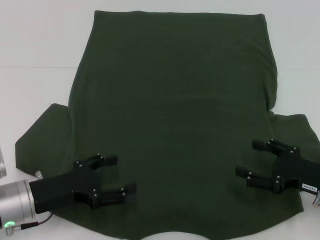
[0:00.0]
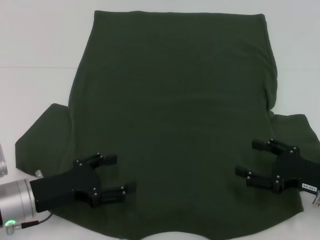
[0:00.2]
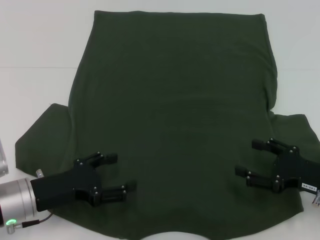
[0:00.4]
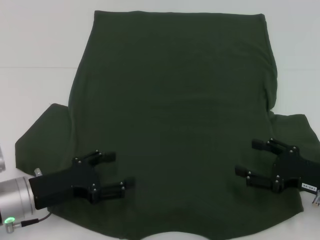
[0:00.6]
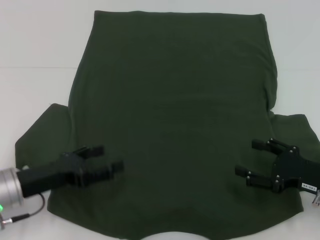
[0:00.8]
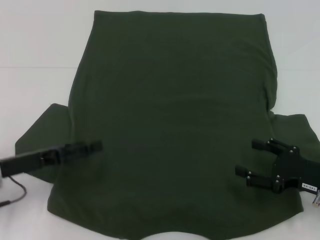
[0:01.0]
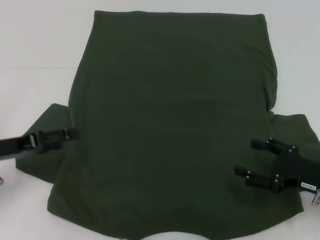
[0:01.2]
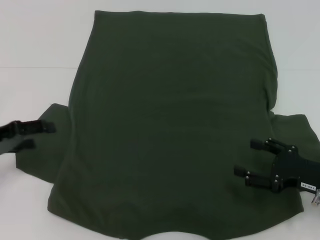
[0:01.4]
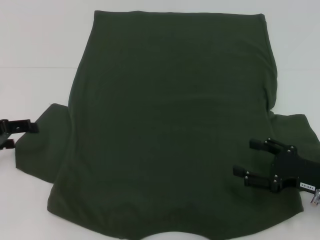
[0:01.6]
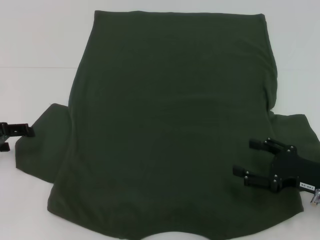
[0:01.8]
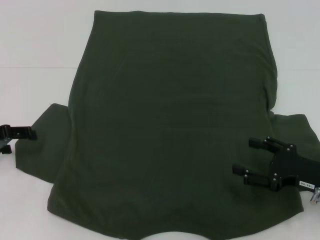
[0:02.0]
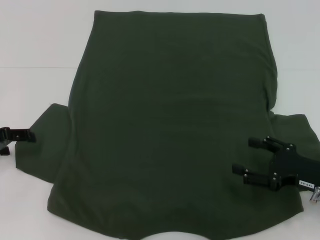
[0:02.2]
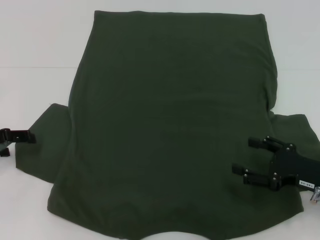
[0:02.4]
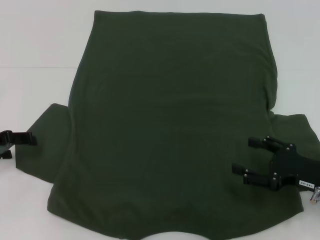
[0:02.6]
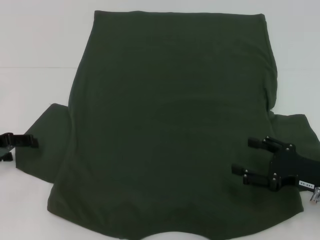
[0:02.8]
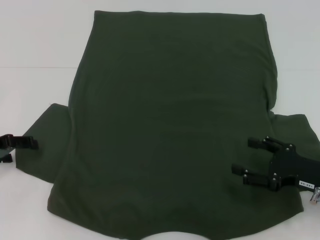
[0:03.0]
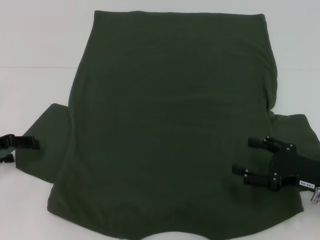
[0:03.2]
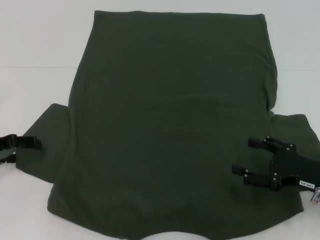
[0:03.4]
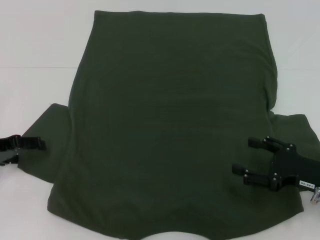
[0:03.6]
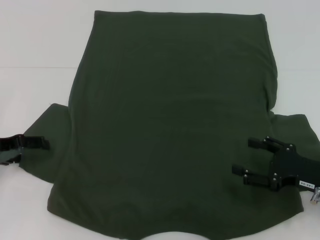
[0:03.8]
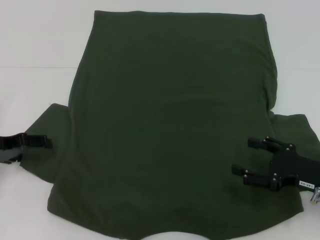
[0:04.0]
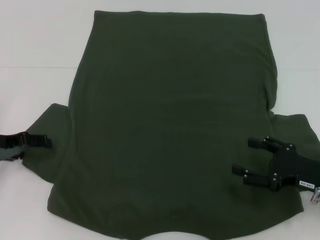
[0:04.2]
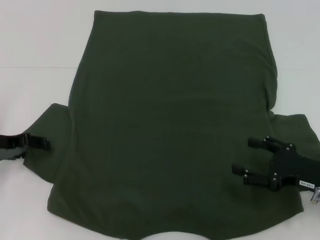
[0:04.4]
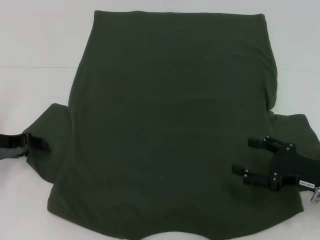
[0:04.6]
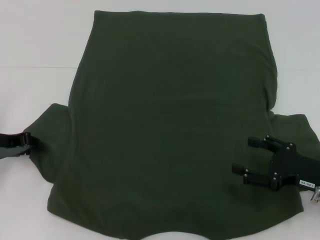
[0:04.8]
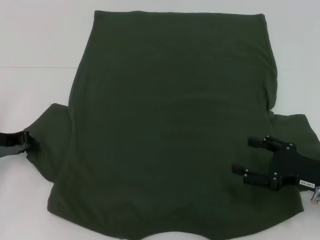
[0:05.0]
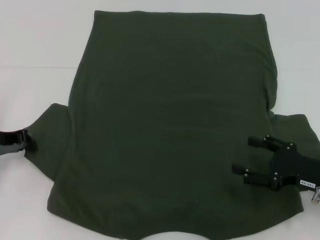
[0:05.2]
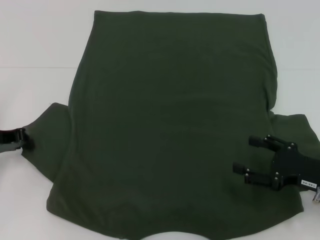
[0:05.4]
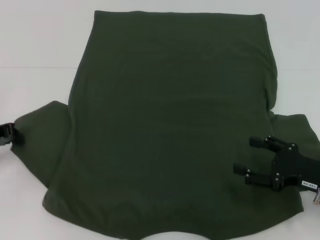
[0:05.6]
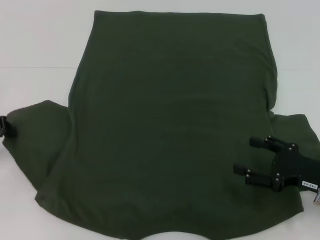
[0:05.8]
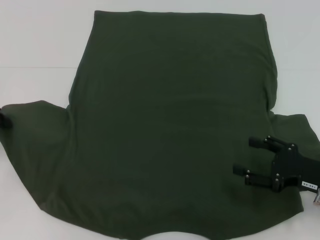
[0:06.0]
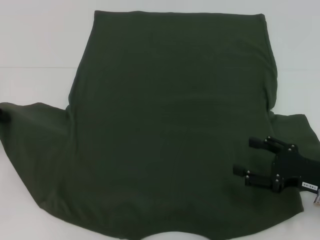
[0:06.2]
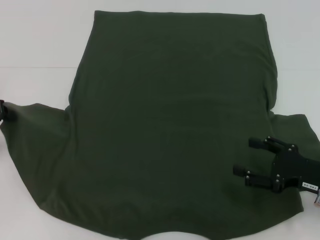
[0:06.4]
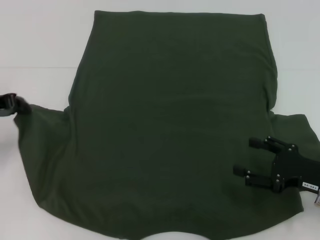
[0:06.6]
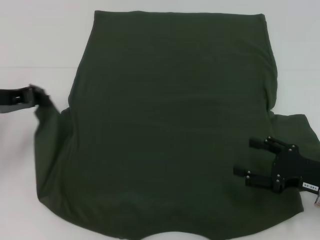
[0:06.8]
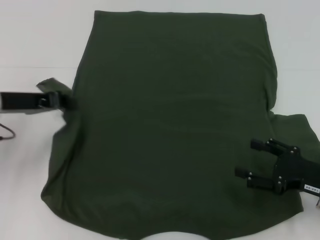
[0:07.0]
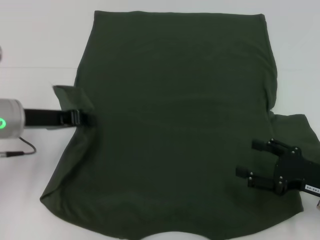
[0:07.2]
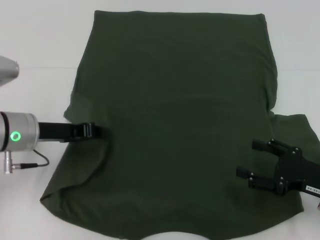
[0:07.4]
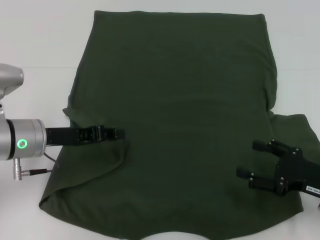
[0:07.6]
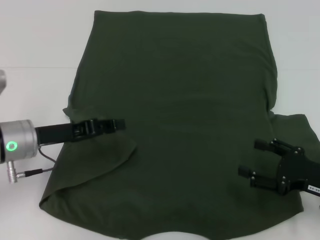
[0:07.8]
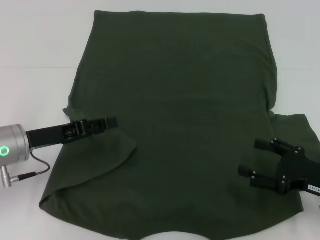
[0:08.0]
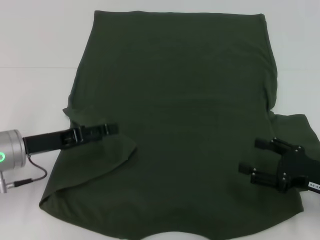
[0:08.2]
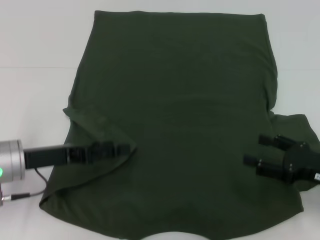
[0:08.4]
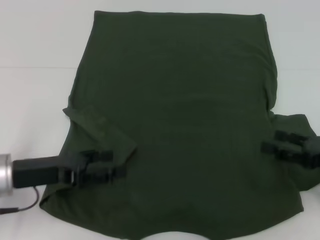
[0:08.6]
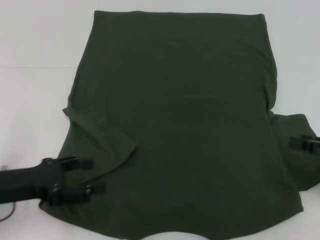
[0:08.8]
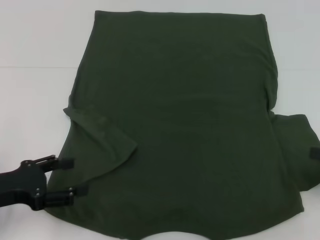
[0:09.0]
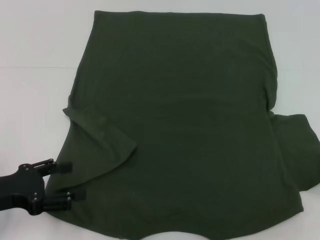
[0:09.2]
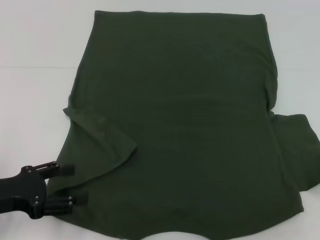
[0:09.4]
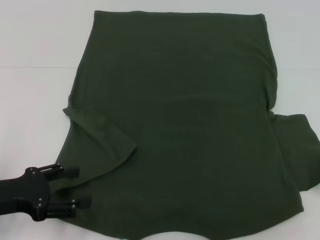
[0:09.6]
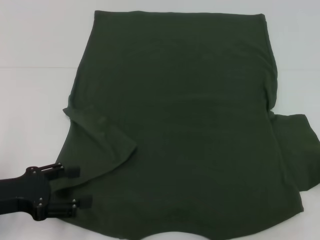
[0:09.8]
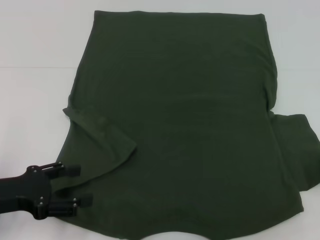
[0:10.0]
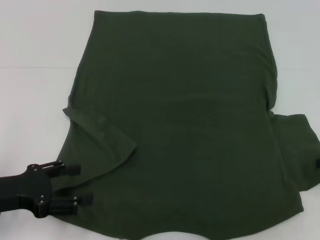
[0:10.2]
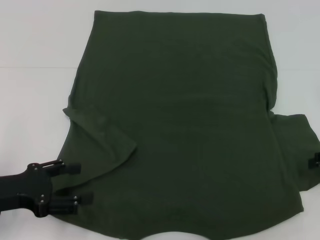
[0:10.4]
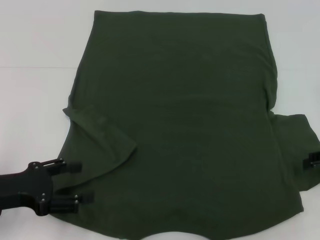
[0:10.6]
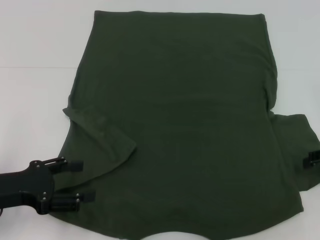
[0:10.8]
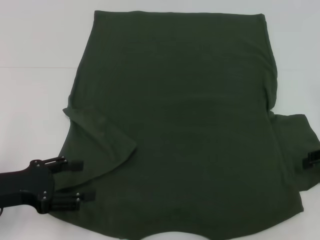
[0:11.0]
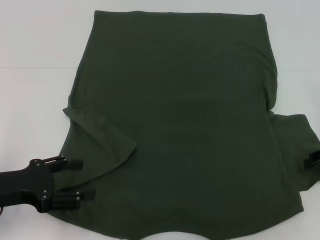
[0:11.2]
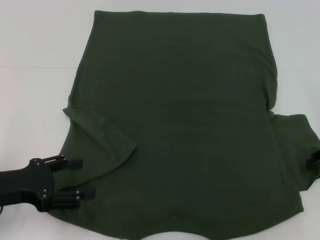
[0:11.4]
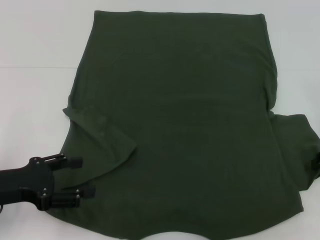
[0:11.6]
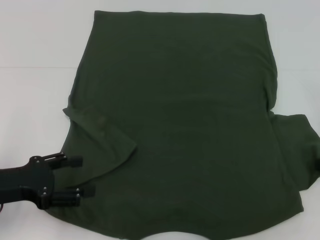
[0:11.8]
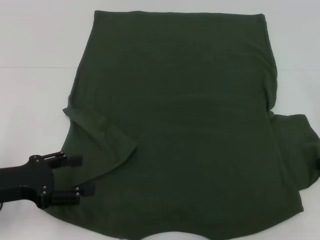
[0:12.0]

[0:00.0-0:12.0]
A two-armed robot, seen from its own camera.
Step, 0:00.0 to 0:08.0: Fold the bottom left sleeve with your left hand.
0:00.0 to 0:01.6: The left gripper goes approximately 15 cm to the left, forward and upward.
0:01.6 to 0:03.0: The grippers stay close to where they were, moving slightly.
0:04.4 to 0:06.0: The left gripper shifts by about 5 cm, and closes its fingers.
0:06.0 to 0:07.6: The left gripper goes some 15 cm to the right.
0:07.6 to 0:09.0: The right gripper goes about 10 cm to the right and upward. Meanwhile the left gripper moves backward and to the left, some 10 cm, and opens its fingers.

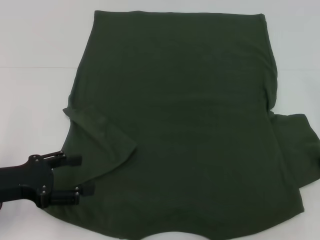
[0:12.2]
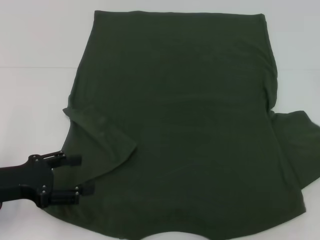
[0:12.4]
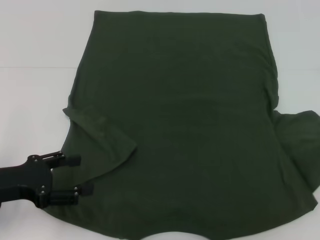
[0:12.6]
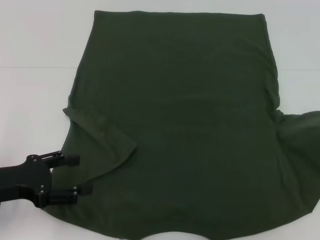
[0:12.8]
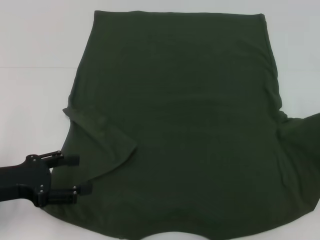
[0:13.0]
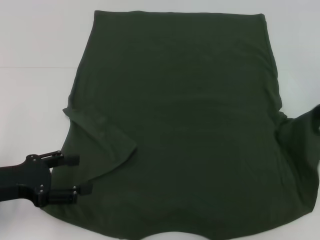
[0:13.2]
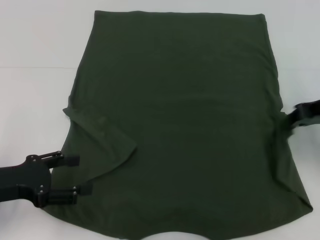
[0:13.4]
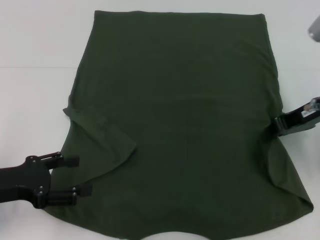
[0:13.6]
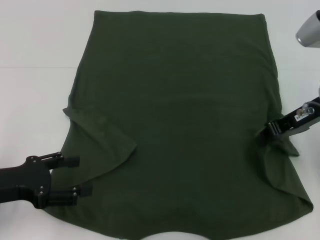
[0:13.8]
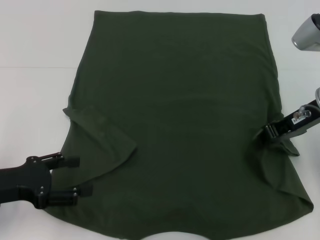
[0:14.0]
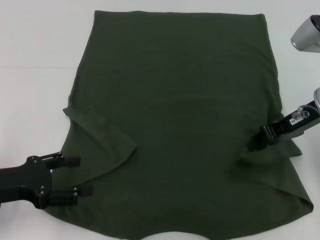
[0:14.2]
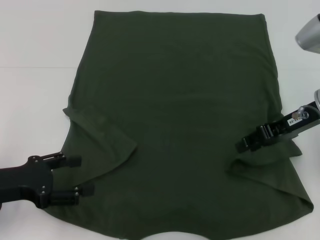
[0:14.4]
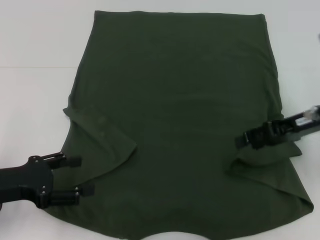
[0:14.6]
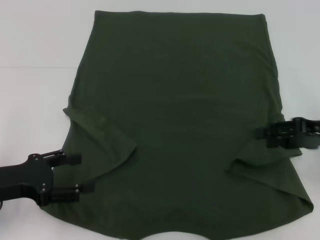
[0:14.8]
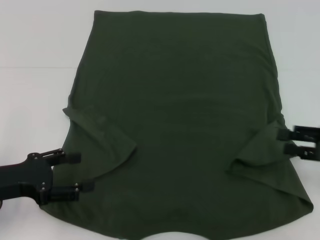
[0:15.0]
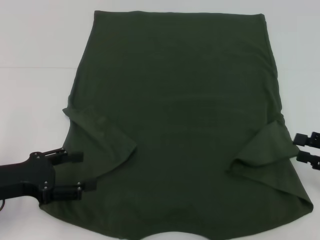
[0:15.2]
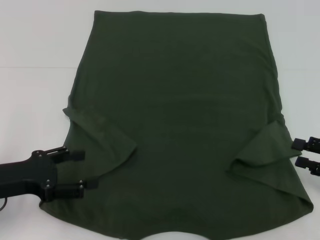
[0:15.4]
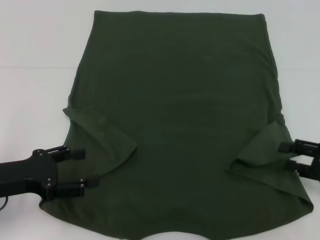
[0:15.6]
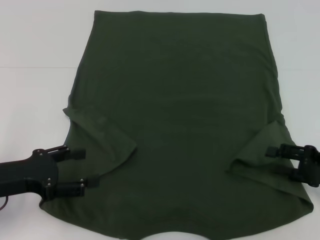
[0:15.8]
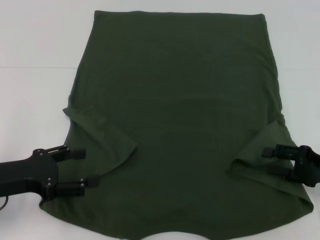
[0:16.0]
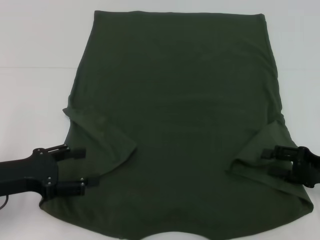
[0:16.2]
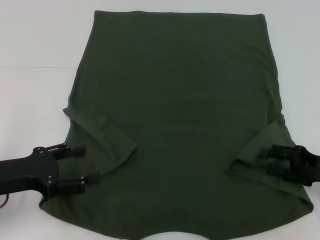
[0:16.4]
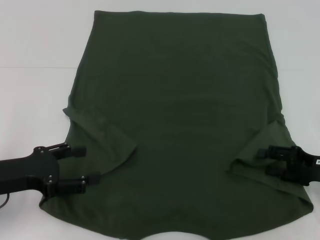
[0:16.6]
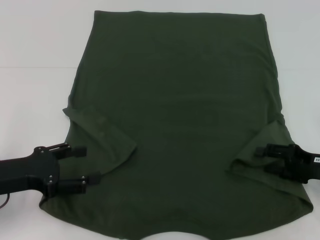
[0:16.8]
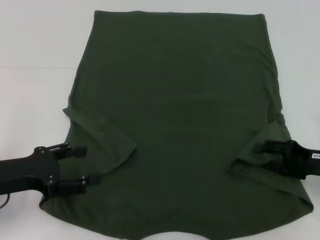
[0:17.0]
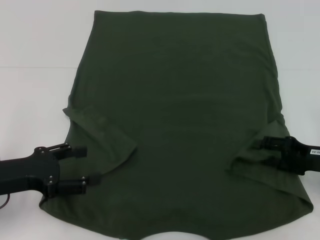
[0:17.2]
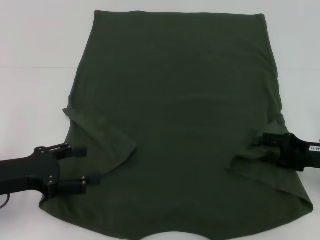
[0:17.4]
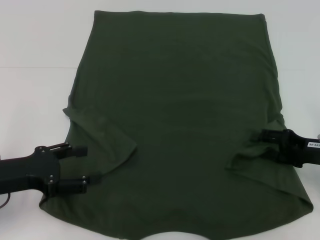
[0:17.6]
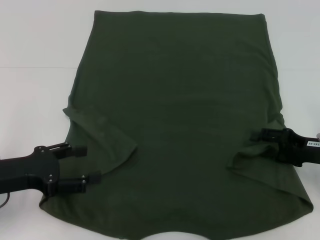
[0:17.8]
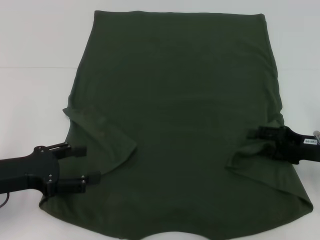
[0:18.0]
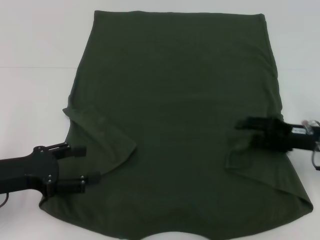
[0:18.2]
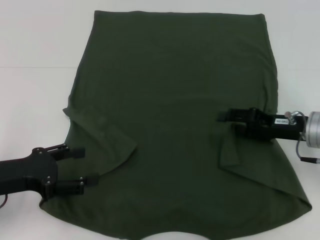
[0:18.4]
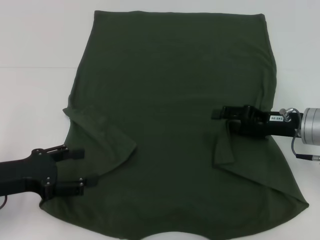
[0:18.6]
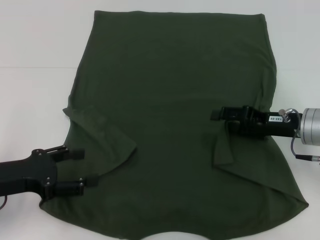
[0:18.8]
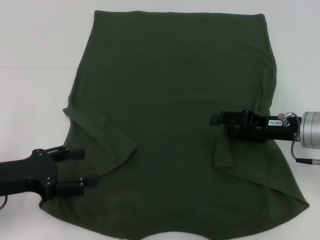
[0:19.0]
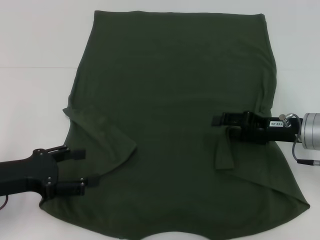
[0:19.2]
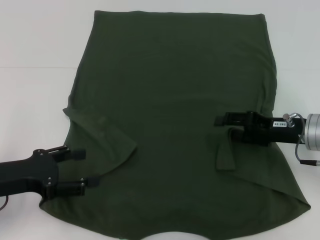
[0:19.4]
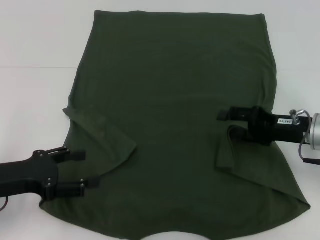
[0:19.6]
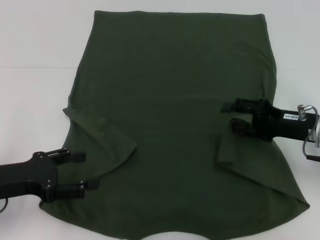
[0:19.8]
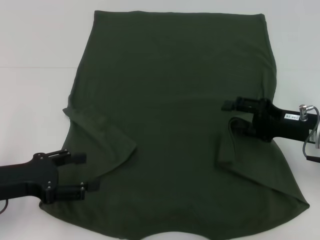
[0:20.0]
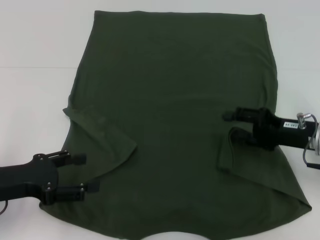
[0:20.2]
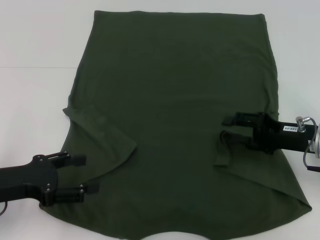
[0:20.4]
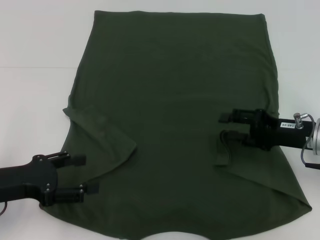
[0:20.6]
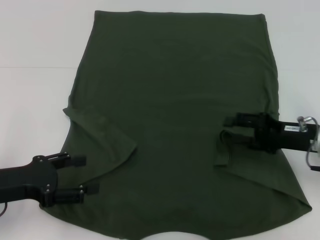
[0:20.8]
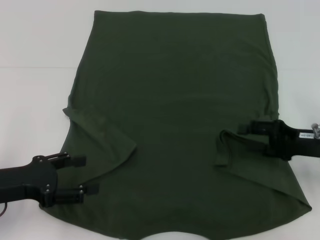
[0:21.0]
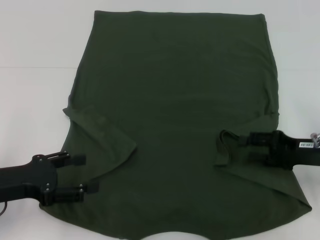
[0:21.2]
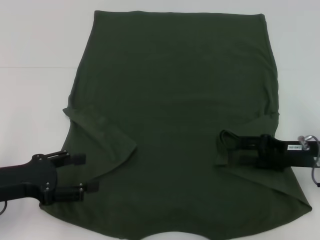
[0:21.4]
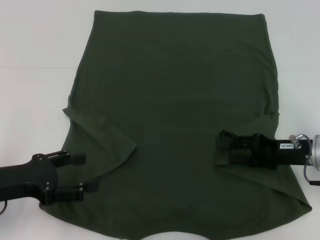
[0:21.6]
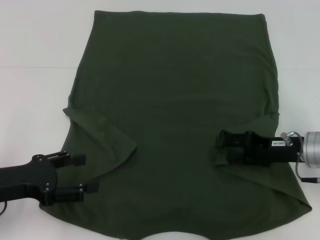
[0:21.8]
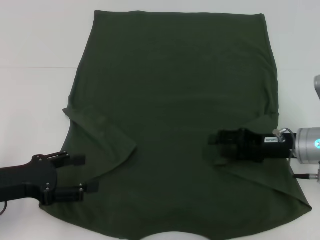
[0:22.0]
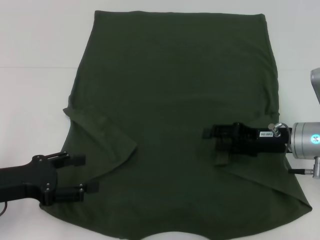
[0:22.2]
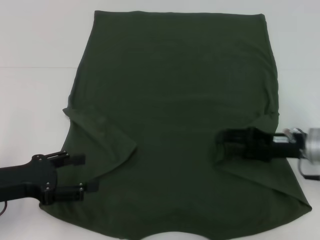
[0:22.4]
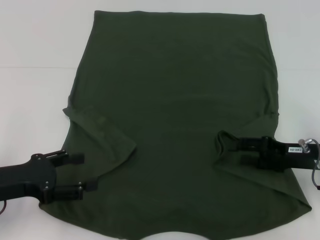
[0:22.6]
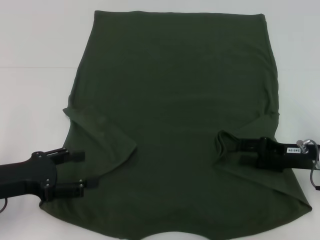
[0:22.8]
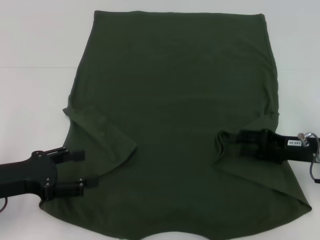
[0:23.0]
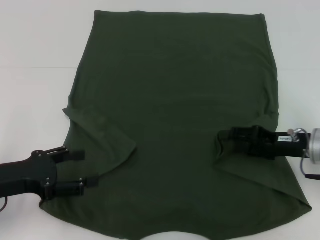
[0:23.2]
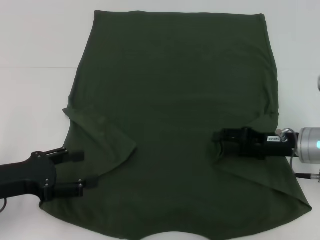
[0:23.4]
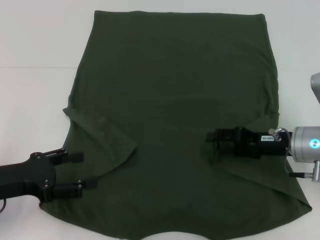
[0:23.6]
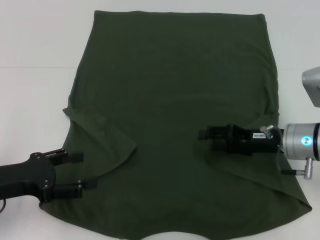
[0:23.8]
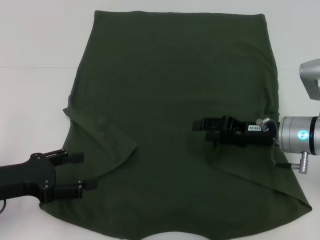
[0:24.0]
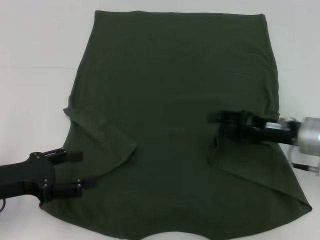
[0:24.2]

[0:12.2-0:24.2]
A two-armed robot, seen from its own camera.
Step, 0:12.2 to 0:14.8: Fold the bottom right sleeve with your right hand.
0:12.2 to 0:13.8: The right gripper heads to the left, covering approximately 10 cm.
0:13.8 to 0:15.2: The right gripper moves to the right, backward and downward, approximately 20 cm, and opens.
0:15.2 to 0:16.6: The right gripper moves approximately 5 cm.
0:16.6 to 0:18.2: The right gripper moves about 5 cm.
0:18.2 to 0:22.6: The grippers stay close to where they were, moving slightly.
